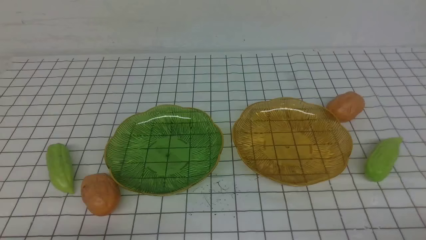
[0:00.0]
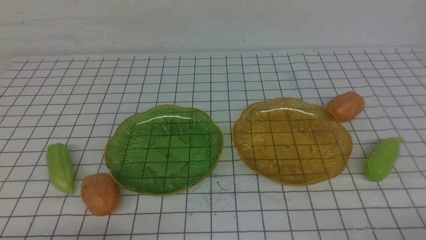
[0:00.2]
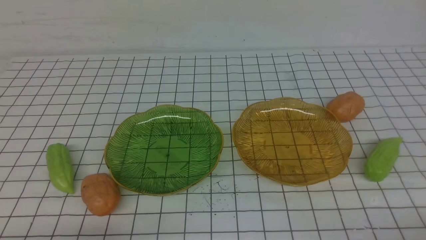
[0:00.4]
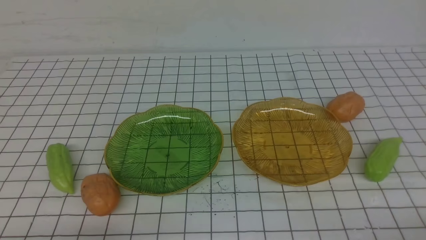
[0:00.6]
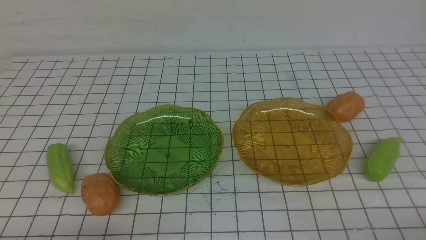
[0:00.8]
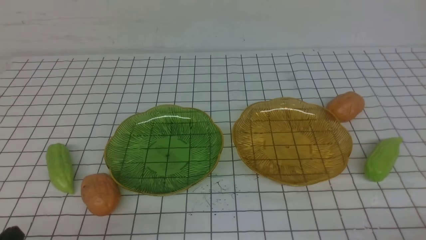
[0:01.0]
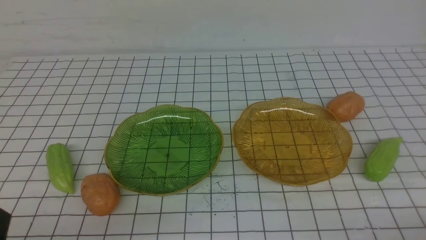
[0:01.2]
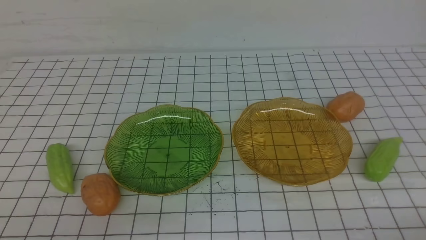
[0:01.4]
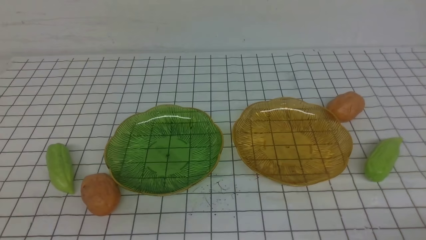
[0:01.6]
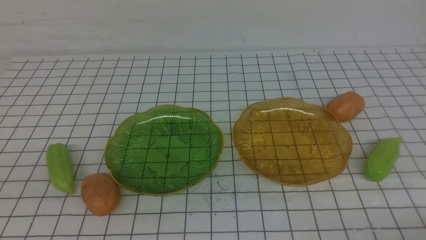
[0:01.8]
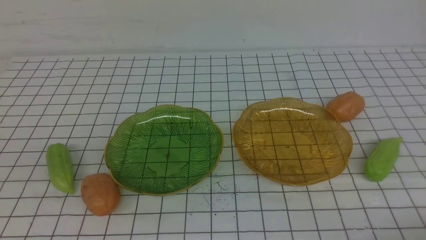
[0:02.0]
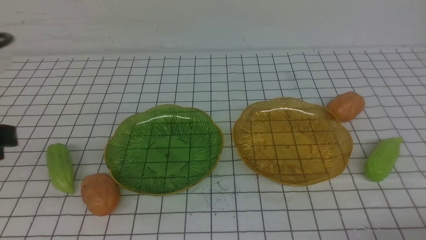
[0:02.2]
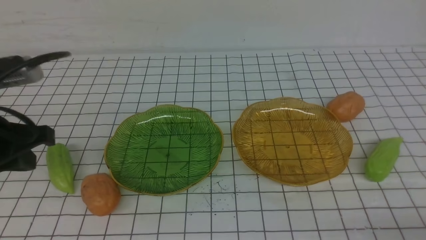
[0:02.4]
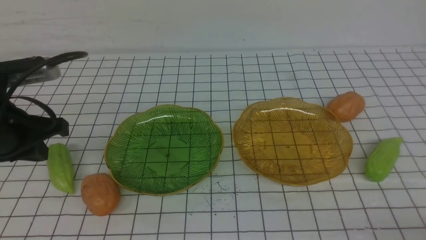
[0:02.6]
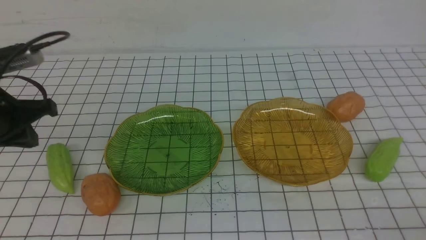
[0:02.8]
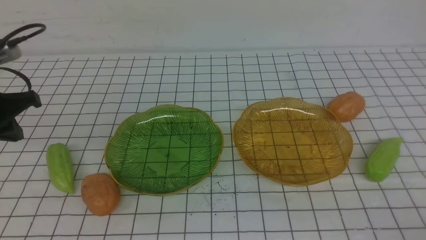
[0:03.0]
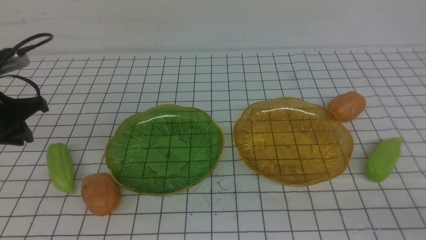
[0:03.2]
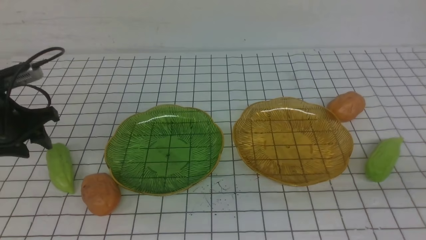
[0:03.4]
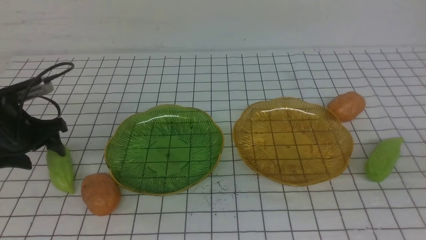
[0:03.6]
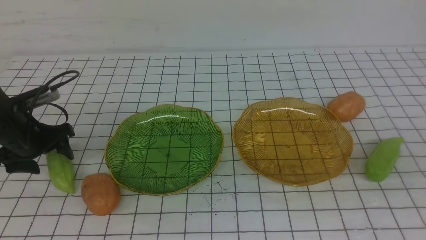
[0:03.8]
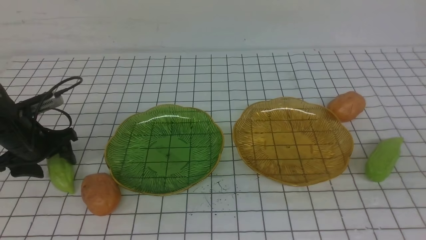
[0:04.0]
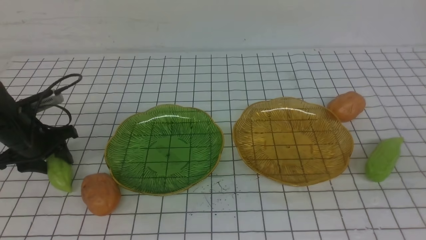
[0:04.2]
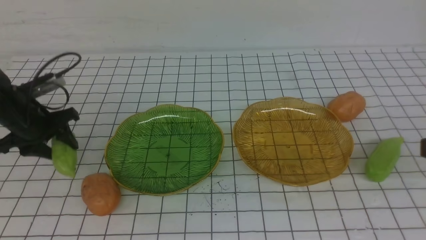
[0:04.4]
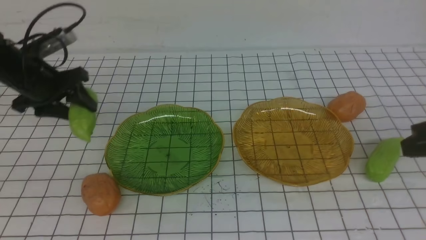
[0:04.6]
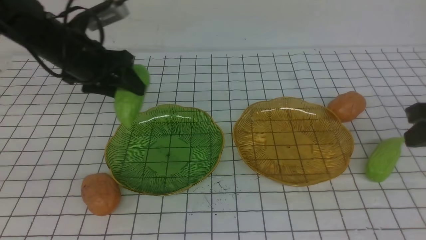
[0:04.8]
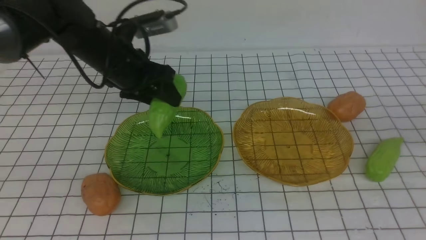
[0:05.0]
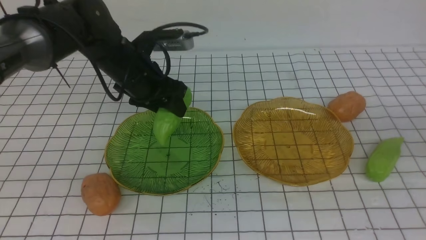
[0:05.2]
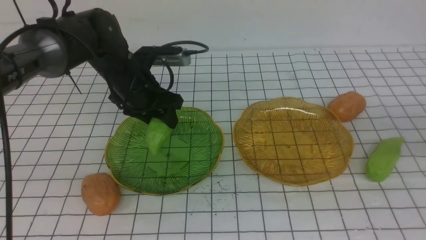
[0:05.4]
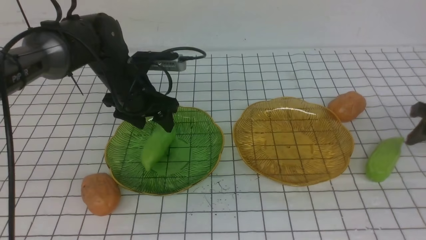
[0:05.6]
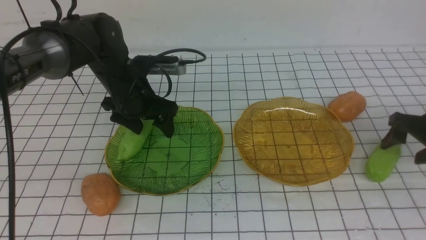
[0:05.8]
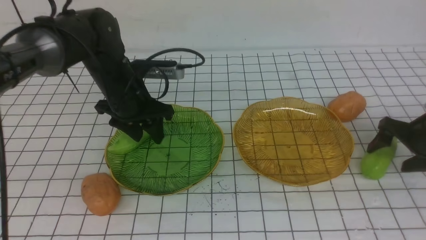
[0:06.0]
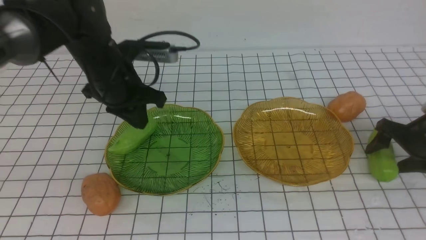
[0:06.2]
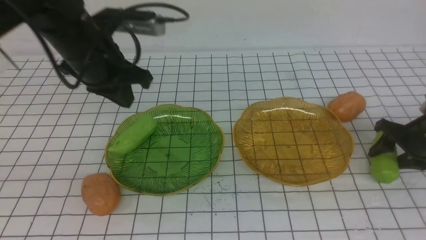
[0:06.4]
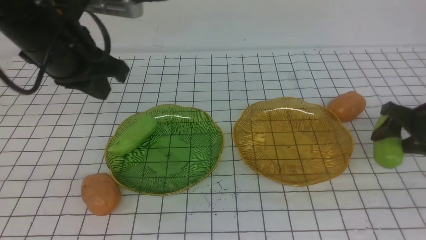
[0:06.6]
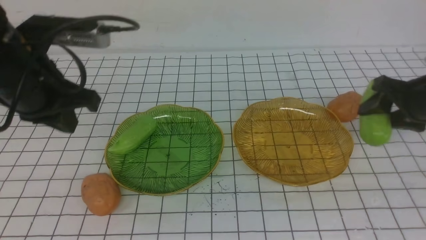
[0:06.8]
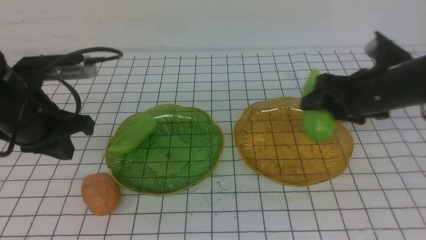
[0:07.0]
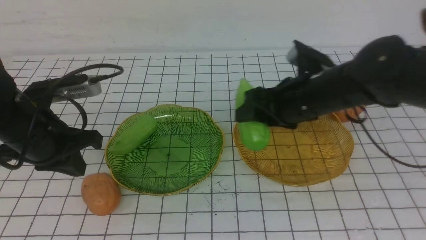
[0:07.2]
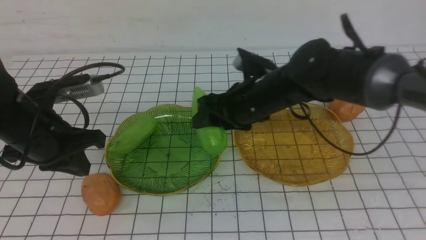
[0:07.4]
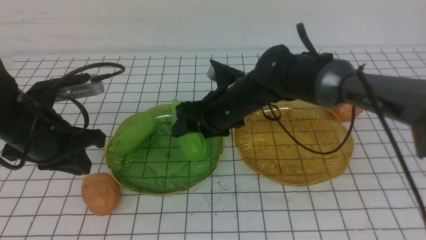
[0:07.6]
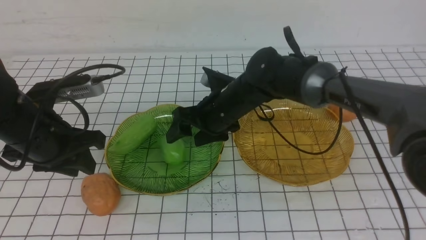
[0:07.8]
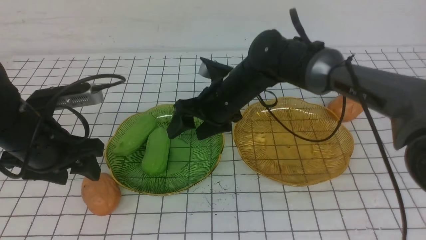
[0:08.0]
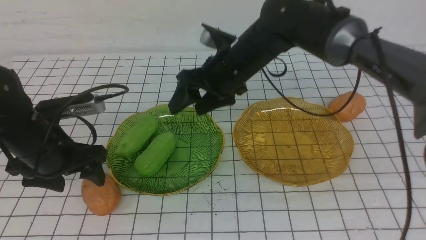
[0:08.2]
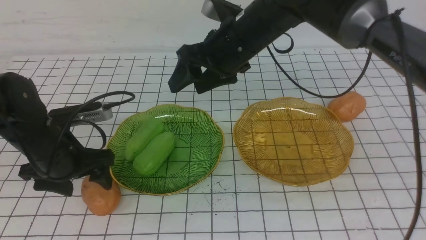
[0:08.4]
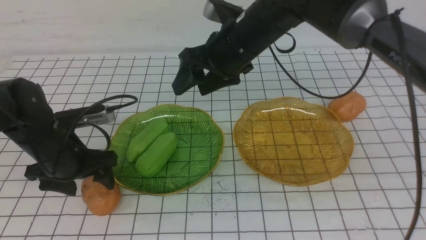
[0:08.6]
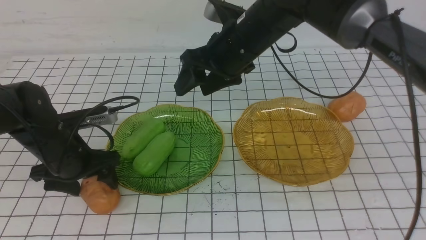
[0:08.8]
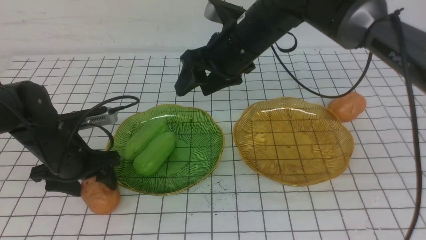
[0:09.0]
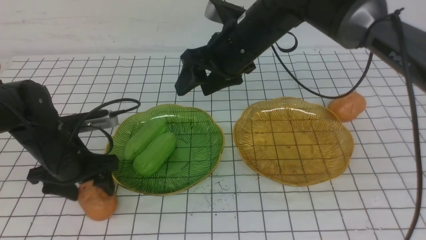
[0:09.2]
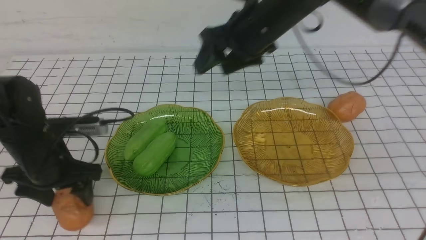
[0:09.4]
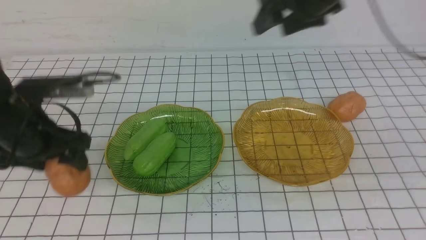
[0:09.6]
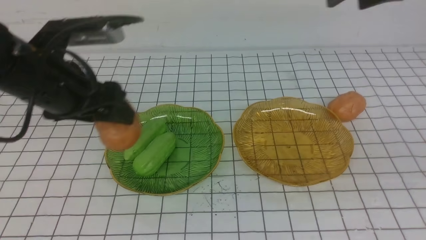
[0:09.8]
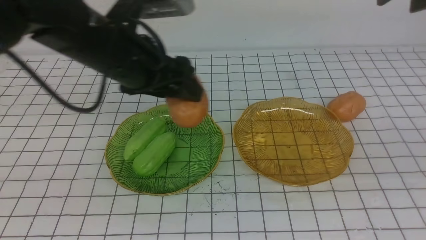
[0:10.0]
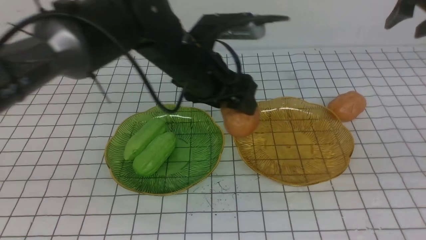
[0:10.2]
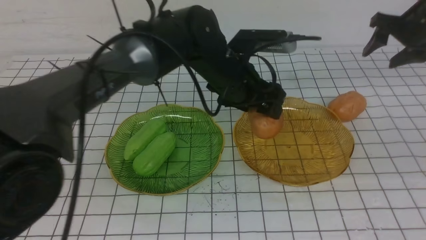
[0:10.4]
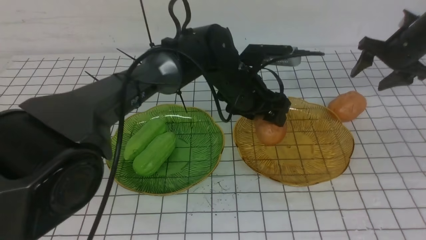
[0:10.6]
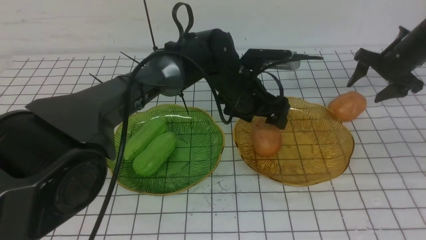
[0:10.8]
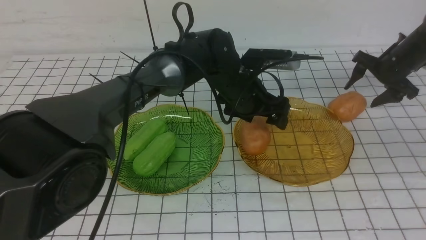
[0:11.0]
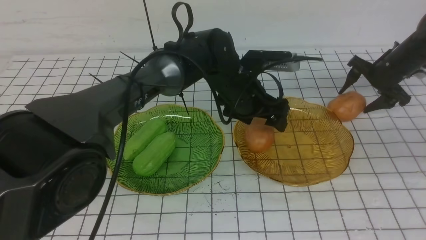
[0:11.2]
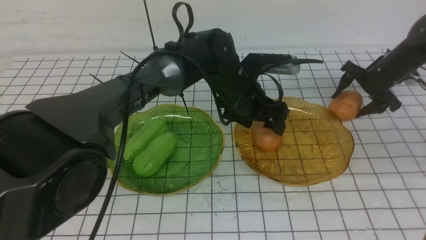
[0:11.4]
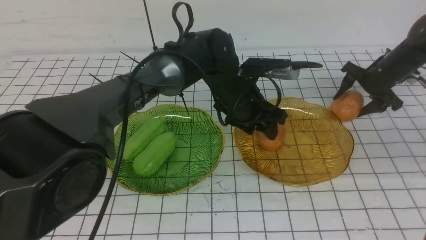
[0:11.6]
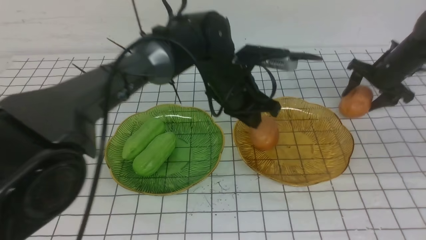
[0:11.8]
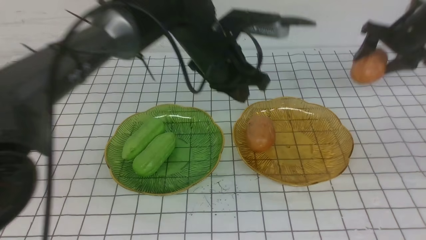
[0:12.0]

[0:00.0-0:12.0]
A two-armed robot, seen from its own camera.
Step, 0:00.0 to 0:05.6: use the left arm to grab a chayote and put it into the left plate.
Step, 0:06.0 to 0:07.8: Grab the chayote with your right arm and put it on the left plate.
Step, 0:08.0 to 0:11.0: Grab a potato with your left arm and put it on the right plate.
0:01.6 to 0:03.0: The left gripper shifts some 25 cm forward.
0:03.0 to 0:04.4: The left gripper moves forward and downward, approximately 10 cm, and opens up.
0:04.4 to 0:06.0: The right gripper heads forward, downward and to the right, covering about 25 cm, and opens. The left gripper heads to the right, covering roughly 15 cm.
0:06.0 to 0:07.6: The left gripper heads backward and to the left, covering some 15 cm; the right gripper moves to the left, some 35 cm.
0:07.6 to 0:09.0: The right gripper travels upward by about 10 cm. Meanwhile the left gripper heads downward, covering about 10 cm, and opens.
0:09.0 to 0:10.4: The two grippers go some 30 cm to the right.
0:10.4 to 0:12.0: The right gripper travels downward and back again, roughly 10 cm each way. The left gripper moves upward, roughly 5 cm, and closes its fingers.

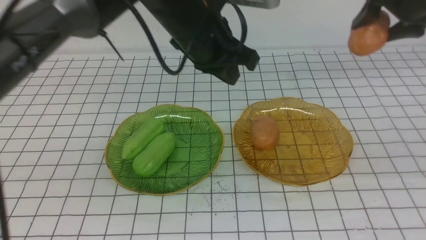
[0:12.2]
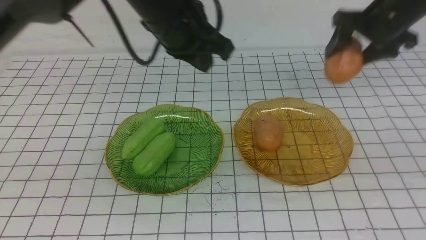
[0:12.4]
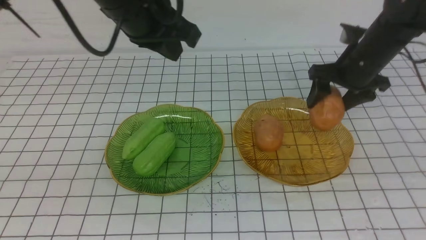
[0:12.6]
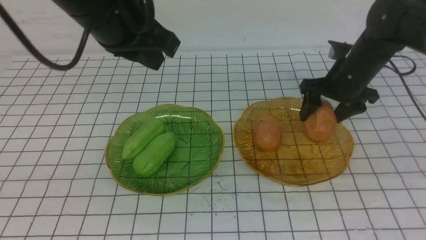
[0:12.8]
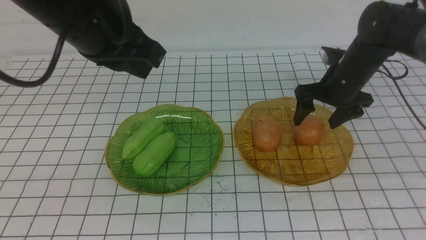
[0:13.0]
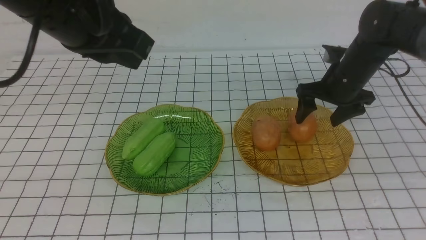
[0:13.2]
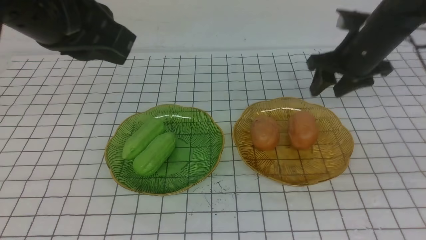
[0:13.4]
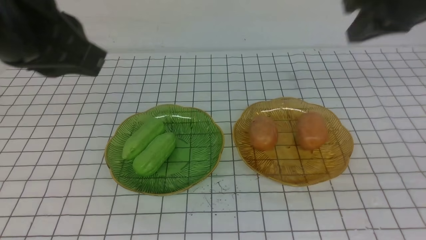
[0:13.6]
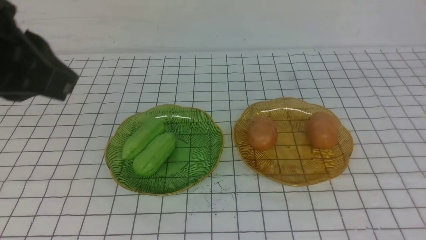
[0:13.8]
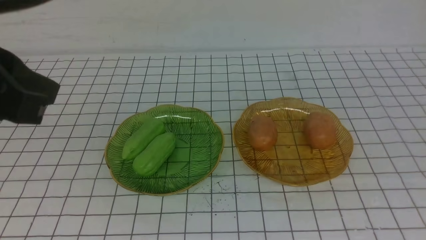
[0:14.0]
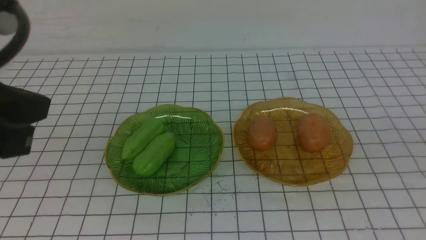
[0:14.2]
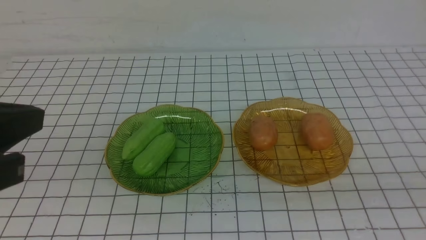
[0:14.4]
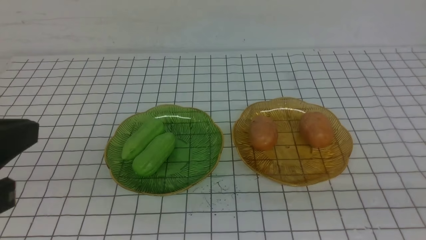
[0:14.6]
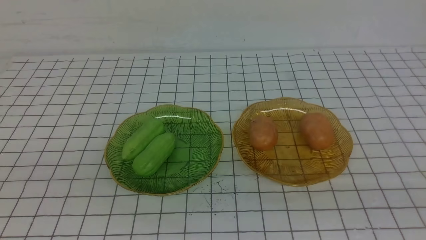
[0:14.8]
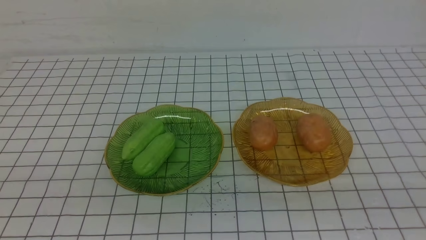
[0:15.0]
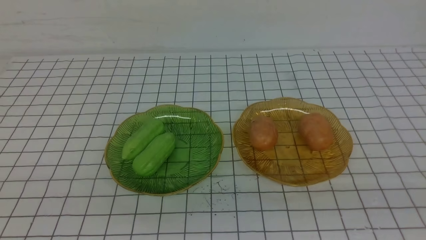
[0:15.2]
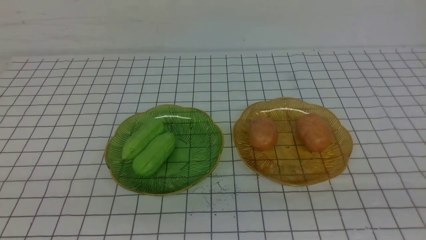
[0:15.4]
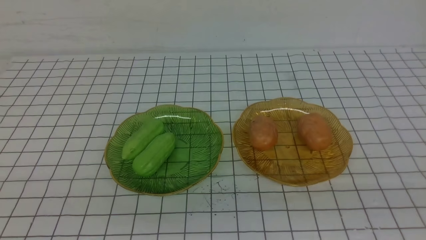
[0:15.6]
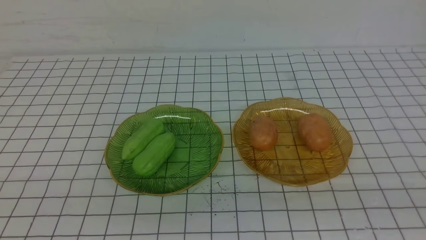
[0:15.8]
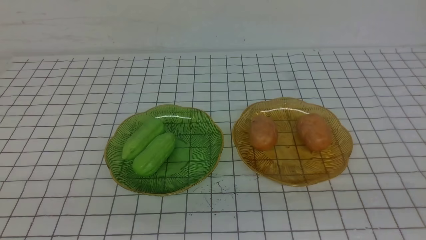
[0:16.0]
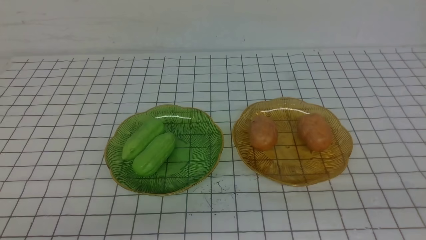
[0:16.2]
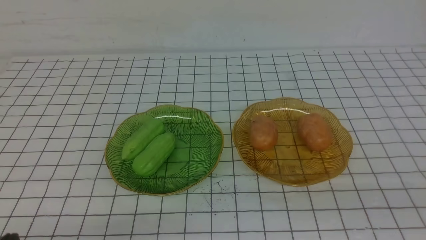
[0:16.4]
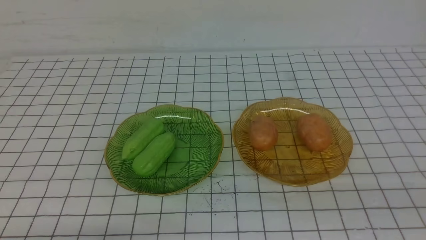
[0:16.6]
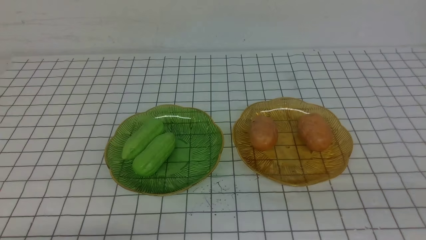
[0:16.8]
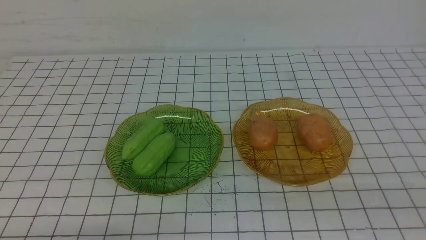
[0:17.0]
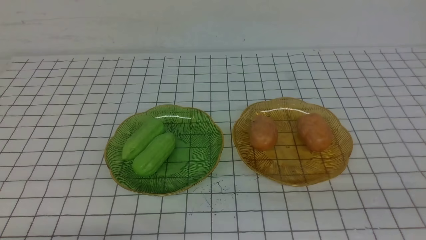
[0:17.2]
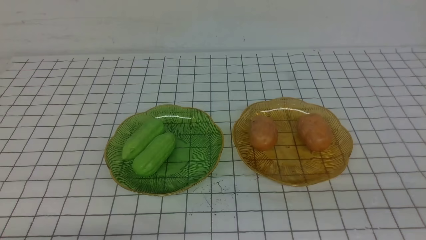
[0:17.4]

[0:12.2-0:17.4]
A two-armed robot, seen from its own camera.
Step, 0:12.2 to 0:13.2: Grab a potato with your right arm and put it on the right plate.
0:12.2 to 0:14.0: The right gripper heads backward and upward, covering approximately 35 cm, and closes its fingers, while the left gripper heads backward and to the left, covering roughly 25 cm.
0:14.0 to 0:15.6: The left gripper is displaced backward, downward and to the left by about 20 cm.
